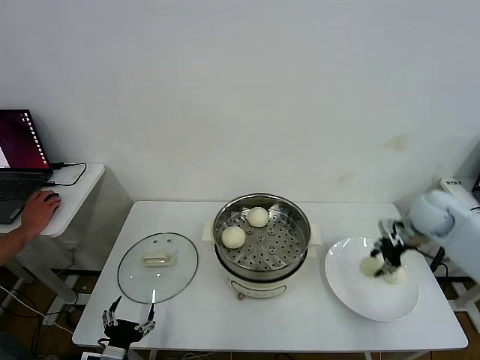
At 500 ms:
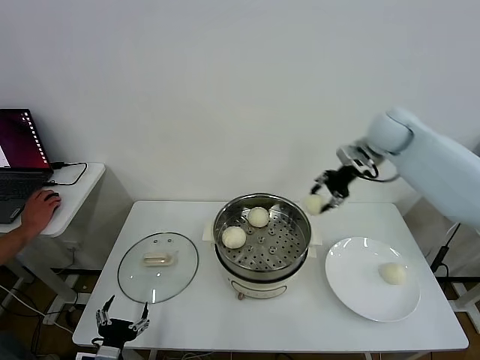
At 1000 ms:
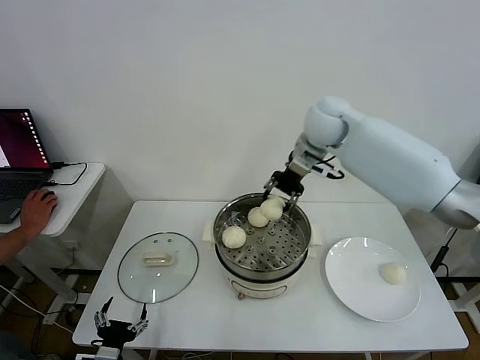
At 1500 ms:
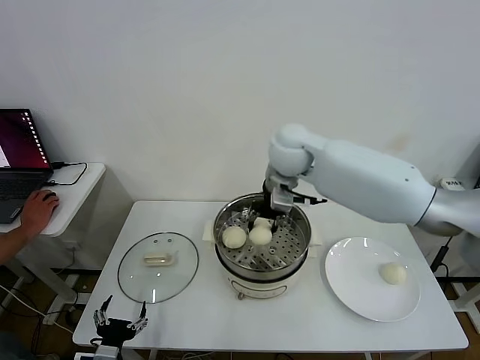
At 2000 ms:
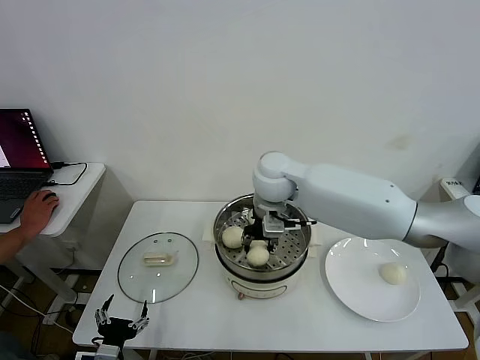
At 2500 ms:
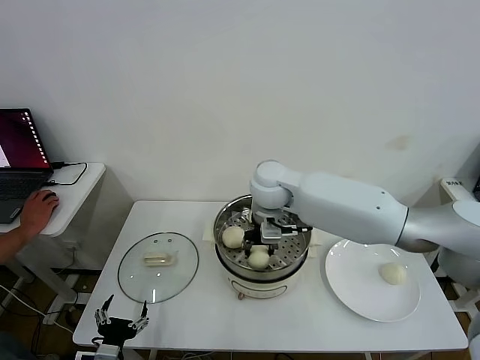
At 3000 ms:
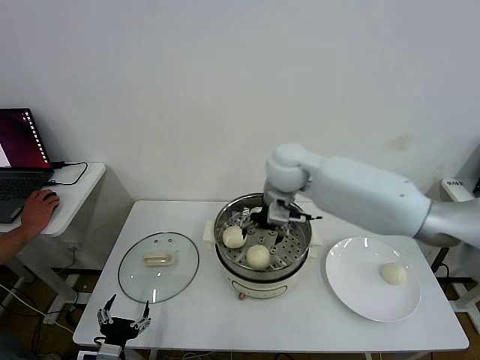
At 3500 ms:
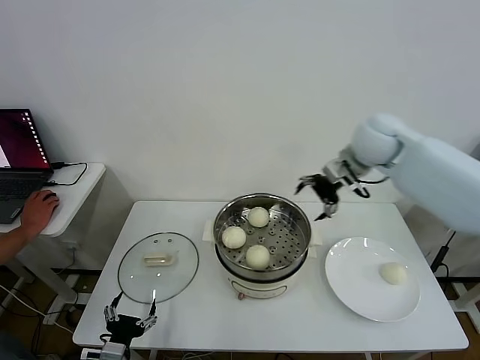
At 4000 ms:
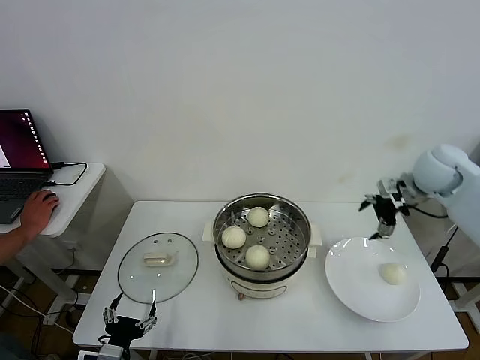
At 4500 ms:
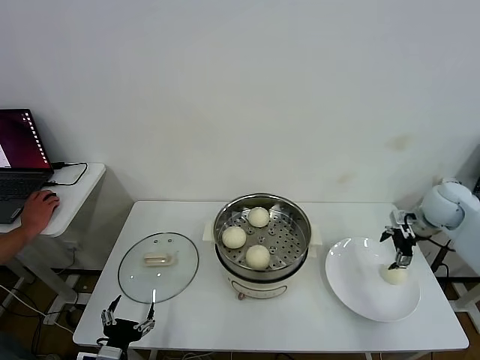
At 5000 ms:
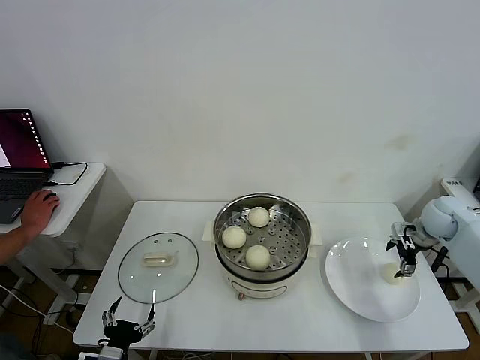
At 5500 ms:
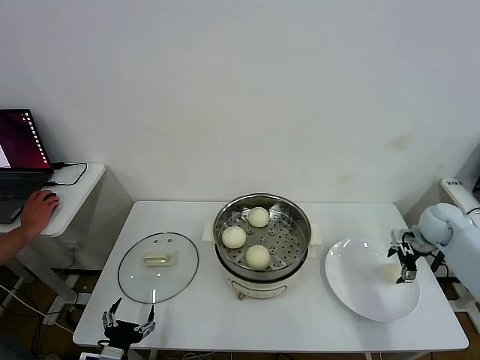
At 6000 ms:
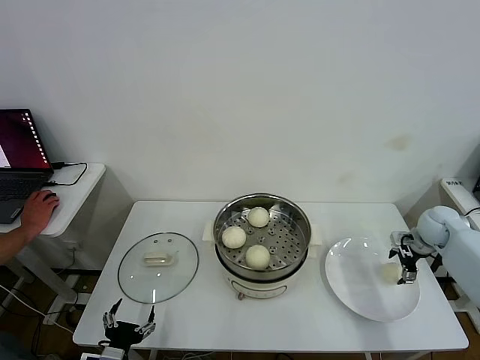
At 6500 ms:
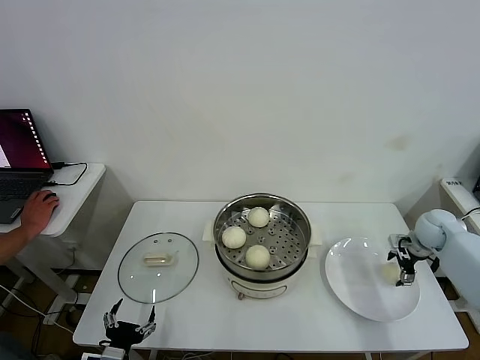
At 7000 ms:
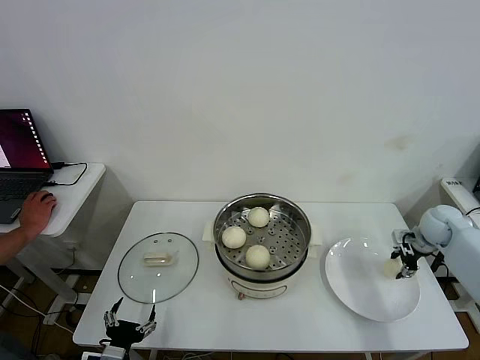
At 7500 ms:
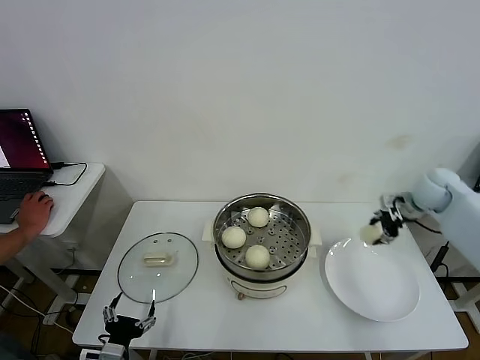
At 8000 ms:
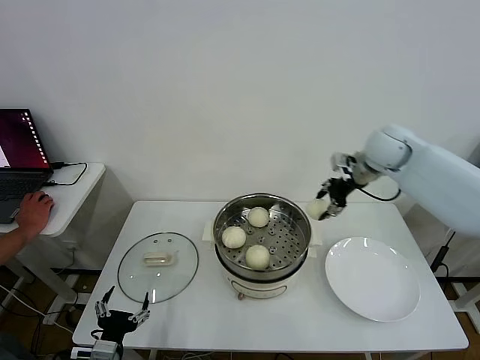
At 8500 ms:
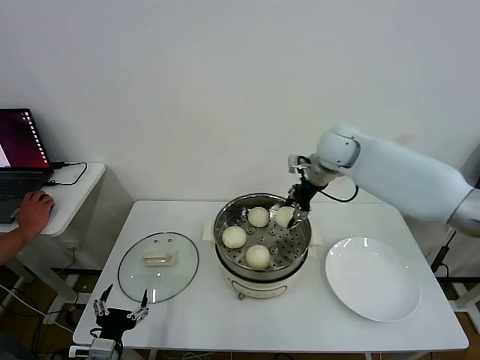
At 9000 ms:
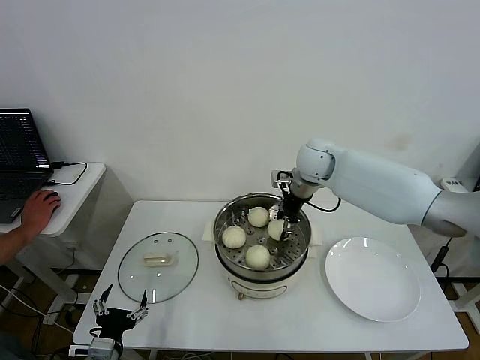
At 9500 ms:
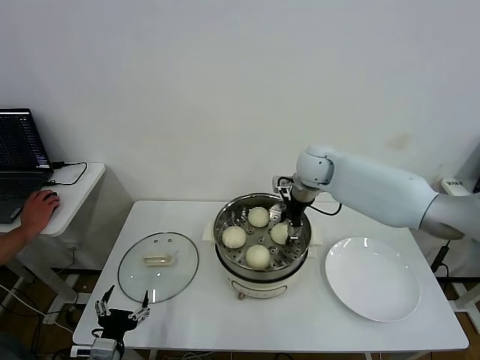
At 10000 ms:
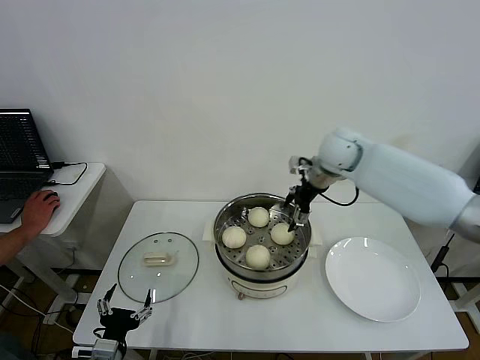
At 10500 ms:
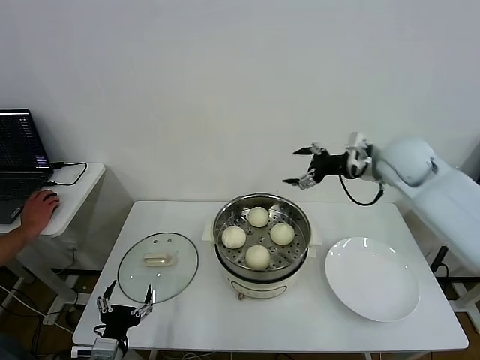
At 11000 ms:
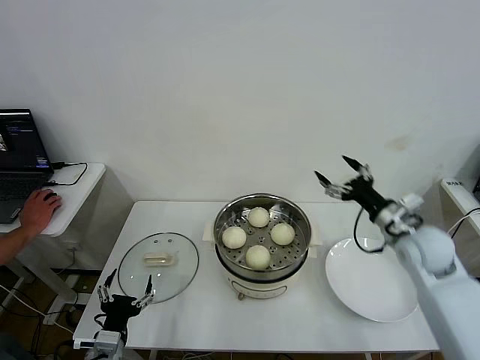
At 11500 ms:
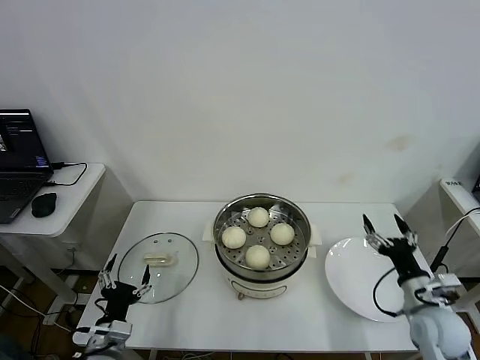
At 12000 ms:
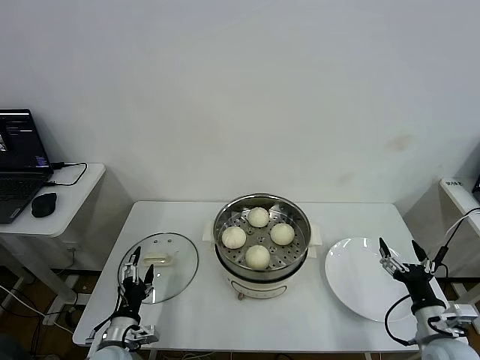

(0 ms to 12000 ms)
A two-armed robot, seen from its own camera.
Step, 0 ms - 2500 ms: Place the baozi on the steamer with right gripper.
Step, 3000 ms - 6500 ms: Grasp the baozi in the plate with right gripper.
Step, 7000 ms - 9500 ms: Place the baozi on the steamer with right gripper.
0 ms - 2000 ms: The right gripper shifts approximately 35 cm to the left.
2000 ms - 4000 ms: The right gripper travels to the right by approximately 35 cm, and opens up.
4000 ms - 6000 ms: The right gripper shifts roughly 20 cm downward and to the right.
6000 ms - 8000 ms: The right gripper goes about 25 cm upward and to the left, and closes.
8000 ms - 10000 ms: The right gripper is displaced to the left by roughly 10 cm, and opens up.
10000 ms - 12000 ms: The right gripper shifts approximately 50 cm backward, downward and to the right; the left gripper shifts roughly 5 cm forward.

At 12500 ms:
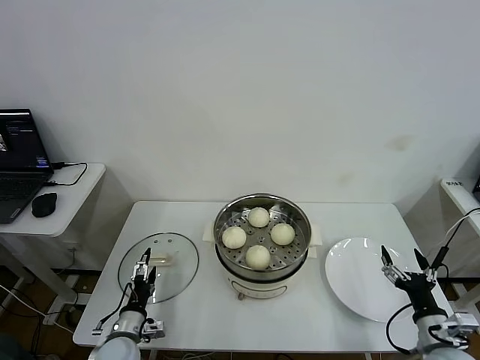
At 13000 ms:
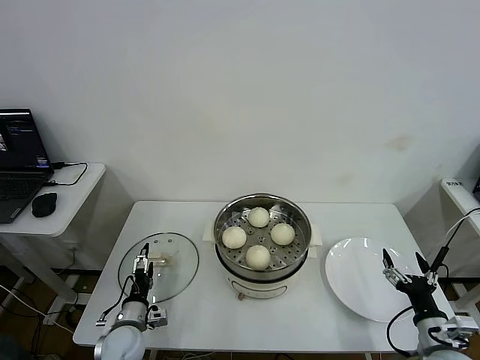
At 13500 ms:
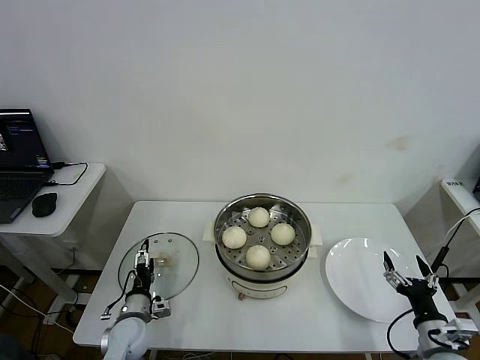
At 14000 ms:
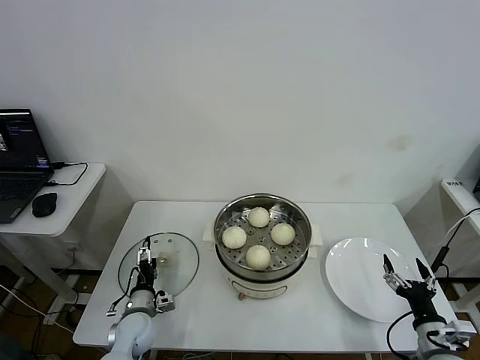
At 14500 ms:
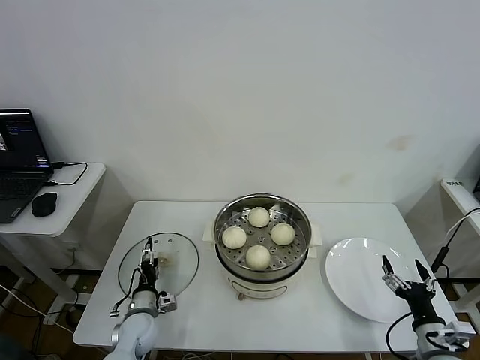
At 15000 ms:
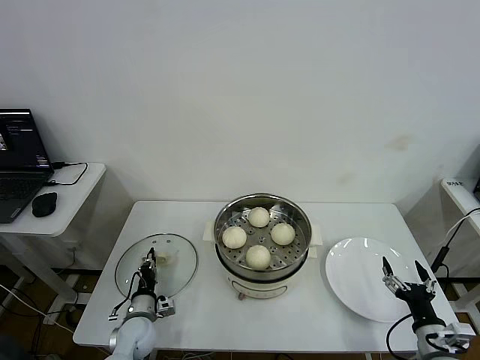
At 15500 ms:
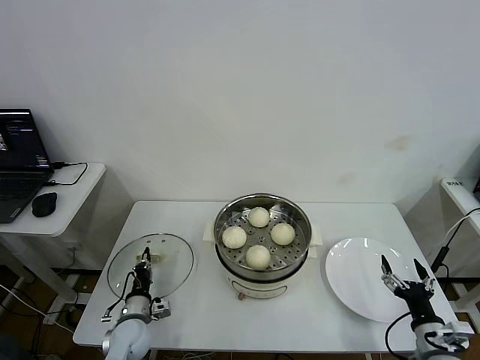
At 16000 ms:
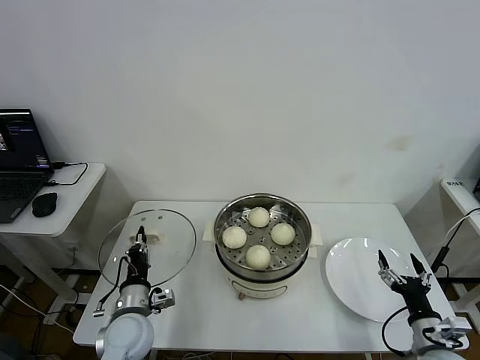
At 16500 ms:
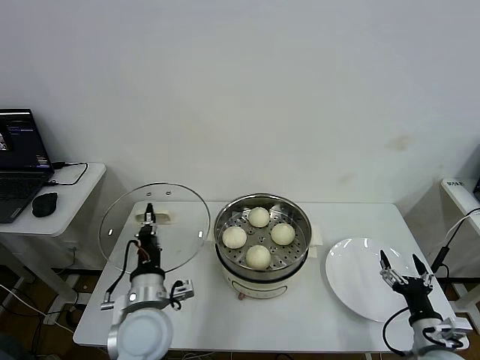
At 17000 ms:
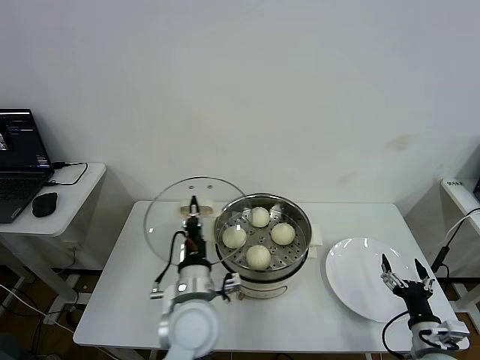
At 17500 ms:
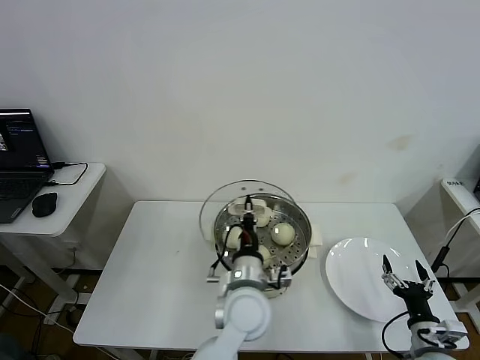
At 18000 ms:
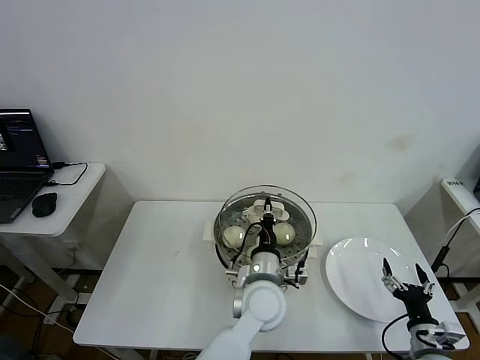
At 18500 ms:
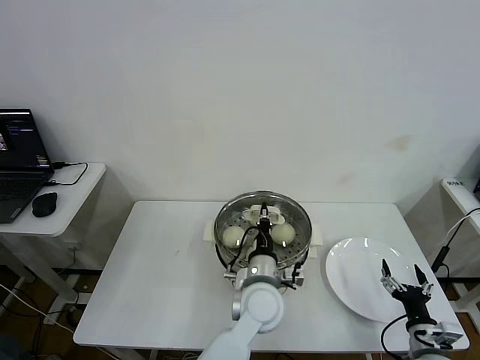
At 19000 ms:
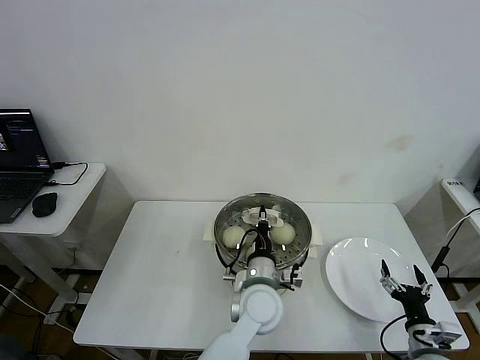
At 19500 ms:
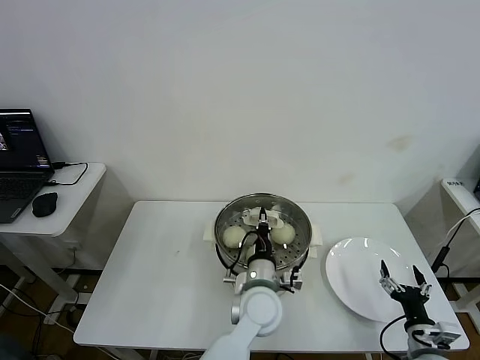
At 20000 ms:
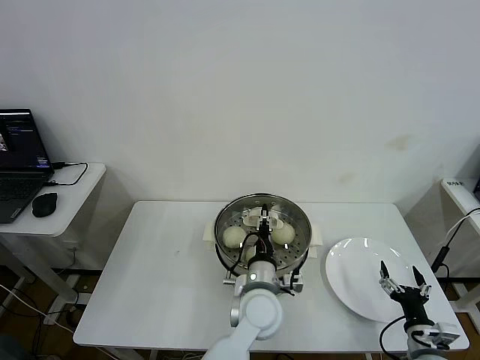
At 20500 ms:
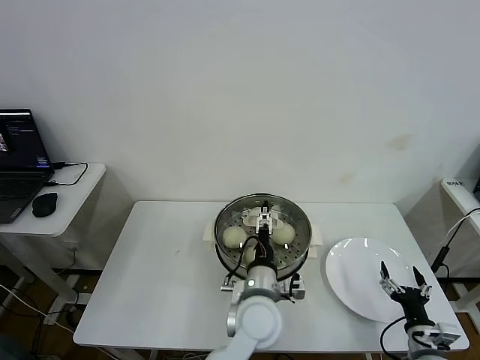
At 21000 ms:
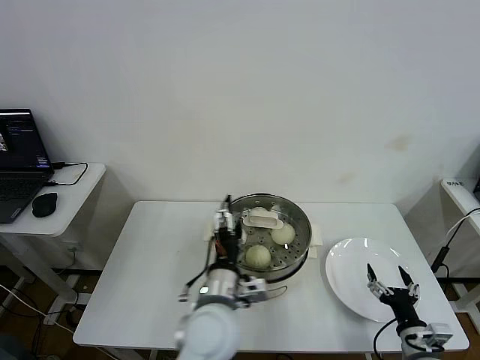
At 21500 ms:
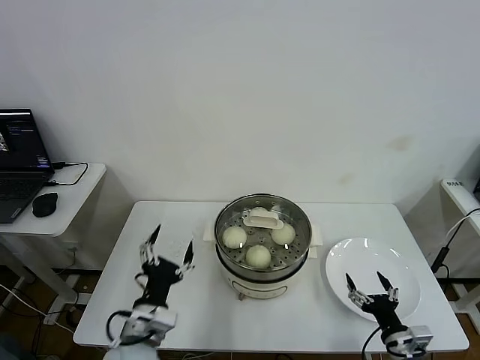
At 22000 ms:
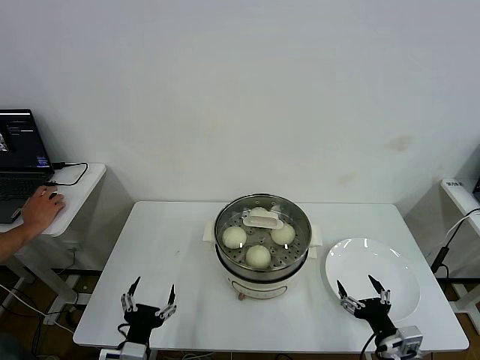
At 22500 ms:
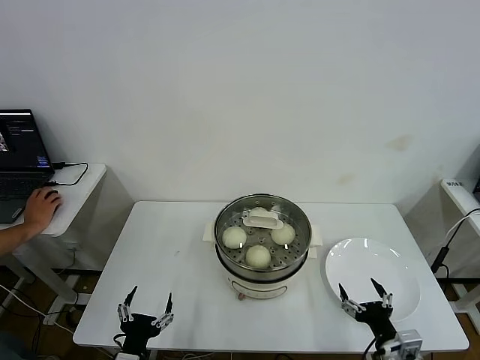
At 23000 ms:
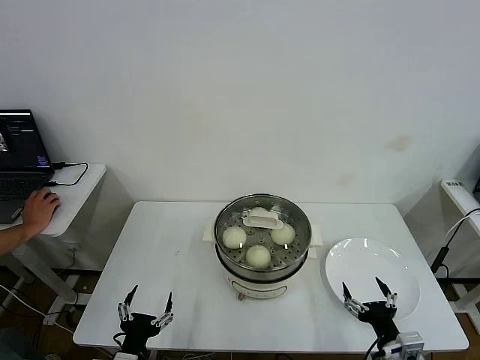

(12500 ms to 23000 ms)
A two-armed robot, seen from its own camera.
Step, 12500 ms - 15000 ms: Grasp the pot lid with left gripper.
Step, 15500 ms - 20000 ms: Place the pot lid on the steamer with left gripper.
12500 ms - 14500 ms: The left gripper moves forward, approximately 5 cm.
14500 ms - 16500 ms: The left gripper is displaced upward and to the right by approximately 20 cm, and closes up.
16500 ms - 19000 ms: The left gripper is displaced to the right by roughly 20 cm.
19000 ms - 21000 ms: The left gripper goes some 10 cm to the left and backward, and opens up.
21000 ms - 23000 ms: The left gripper is displaced to the left, backward and downward by about 25 cm. The right gripper shifts approximately 5 cm to the left.
